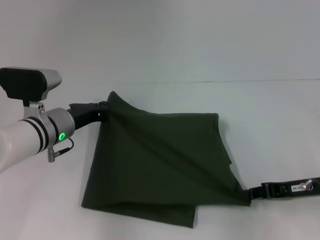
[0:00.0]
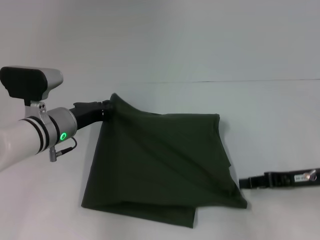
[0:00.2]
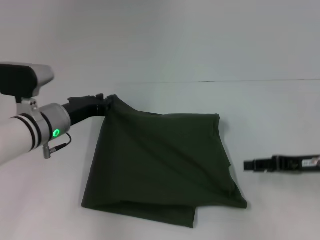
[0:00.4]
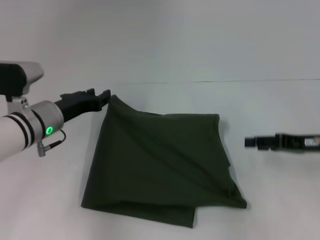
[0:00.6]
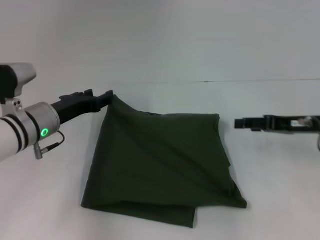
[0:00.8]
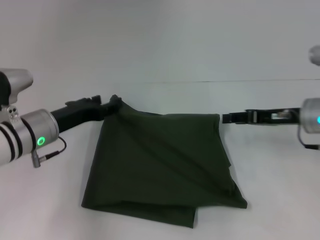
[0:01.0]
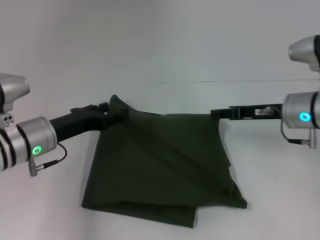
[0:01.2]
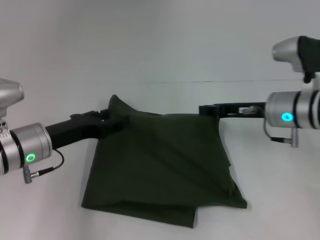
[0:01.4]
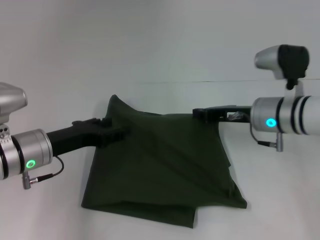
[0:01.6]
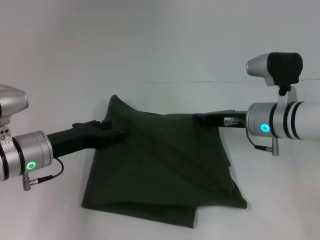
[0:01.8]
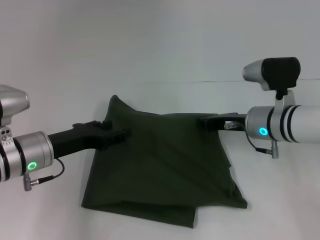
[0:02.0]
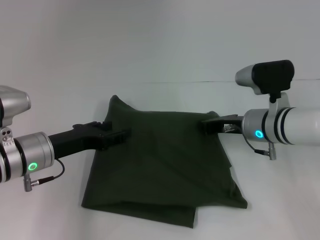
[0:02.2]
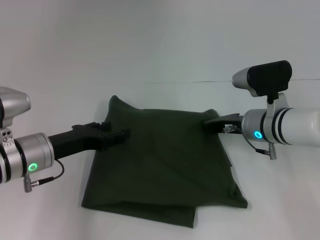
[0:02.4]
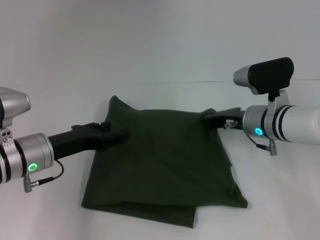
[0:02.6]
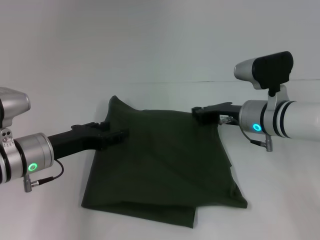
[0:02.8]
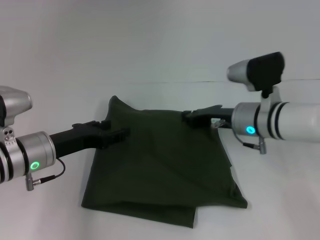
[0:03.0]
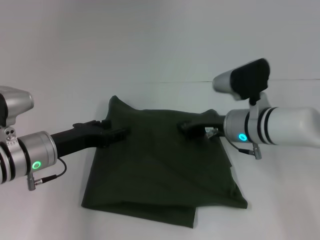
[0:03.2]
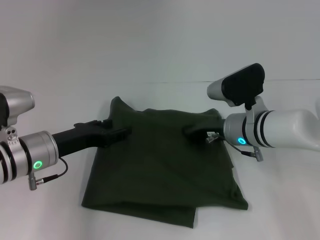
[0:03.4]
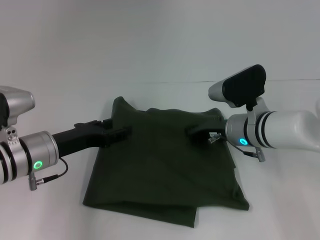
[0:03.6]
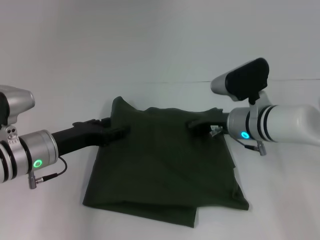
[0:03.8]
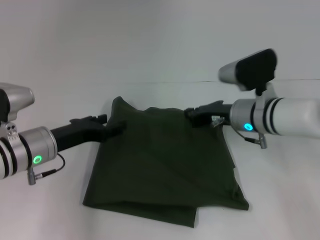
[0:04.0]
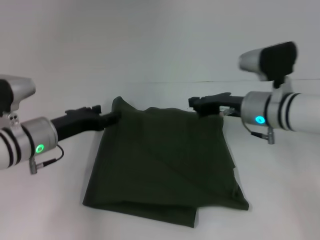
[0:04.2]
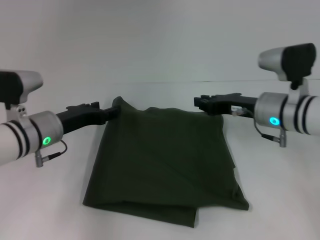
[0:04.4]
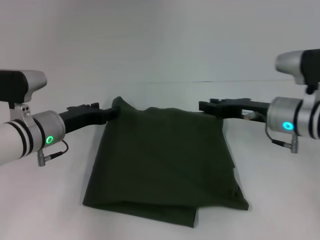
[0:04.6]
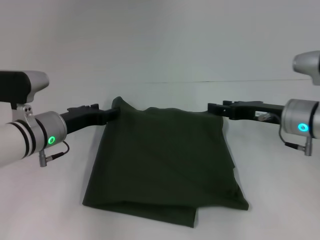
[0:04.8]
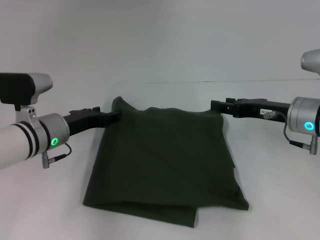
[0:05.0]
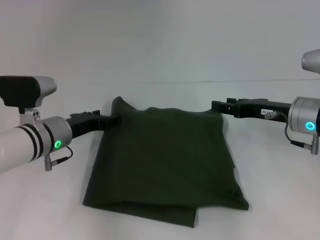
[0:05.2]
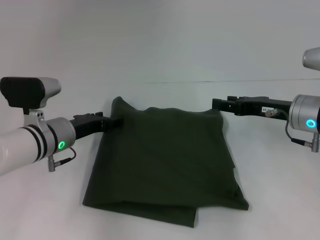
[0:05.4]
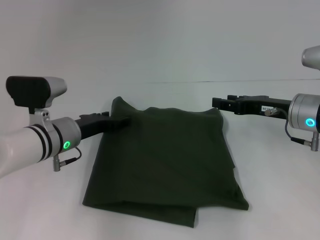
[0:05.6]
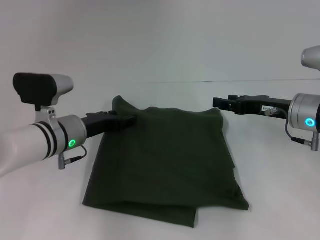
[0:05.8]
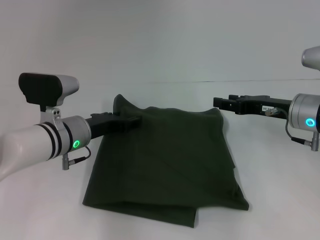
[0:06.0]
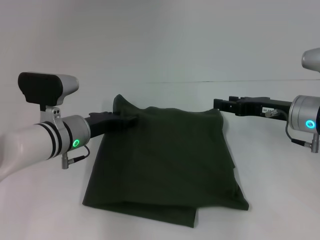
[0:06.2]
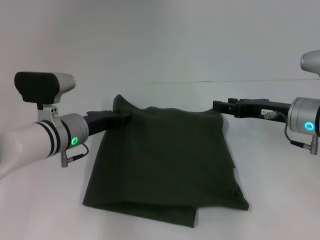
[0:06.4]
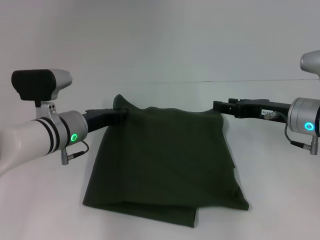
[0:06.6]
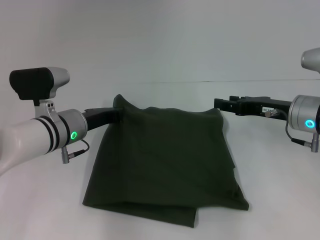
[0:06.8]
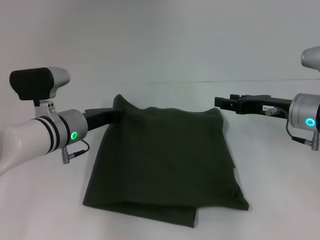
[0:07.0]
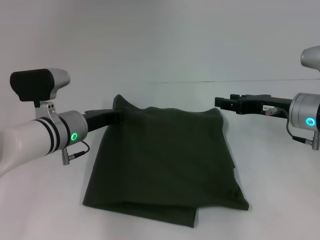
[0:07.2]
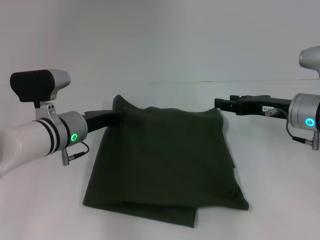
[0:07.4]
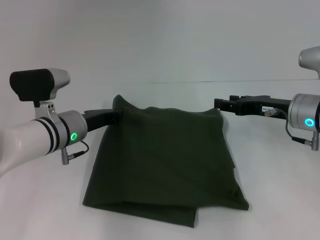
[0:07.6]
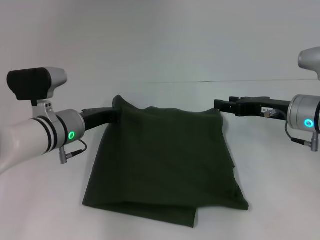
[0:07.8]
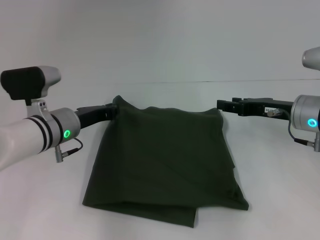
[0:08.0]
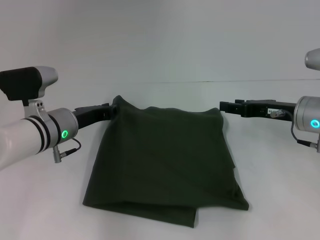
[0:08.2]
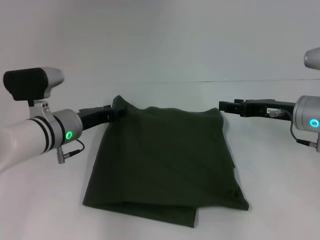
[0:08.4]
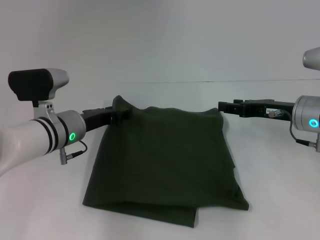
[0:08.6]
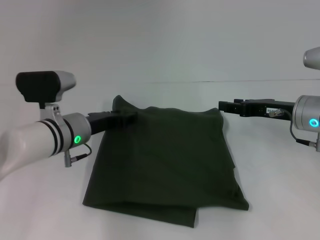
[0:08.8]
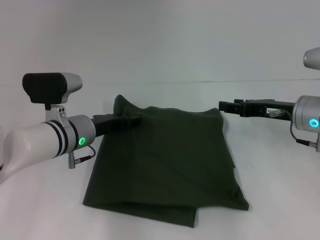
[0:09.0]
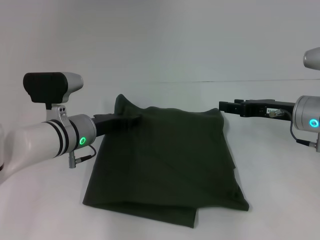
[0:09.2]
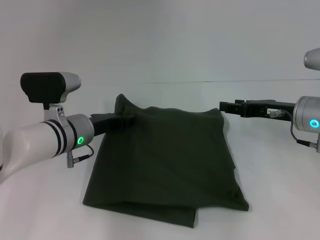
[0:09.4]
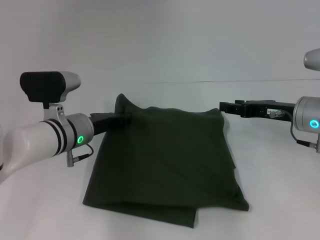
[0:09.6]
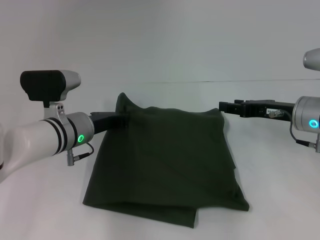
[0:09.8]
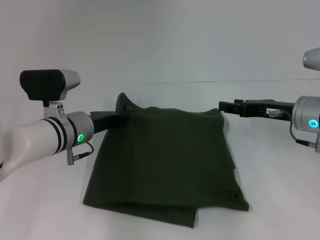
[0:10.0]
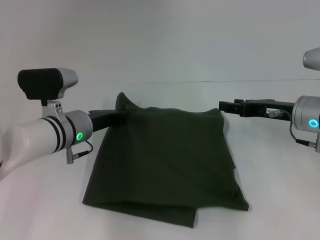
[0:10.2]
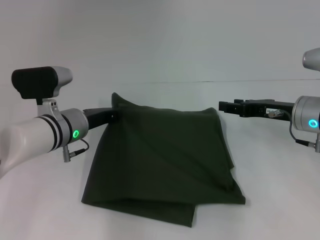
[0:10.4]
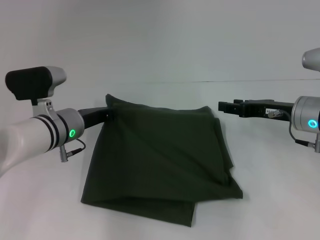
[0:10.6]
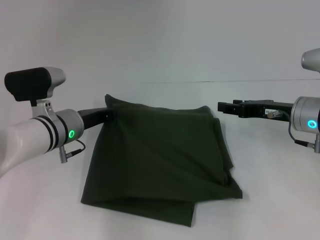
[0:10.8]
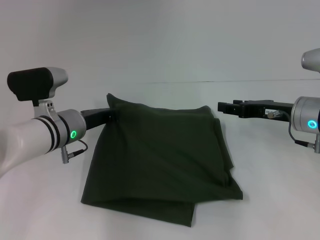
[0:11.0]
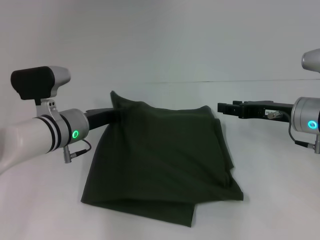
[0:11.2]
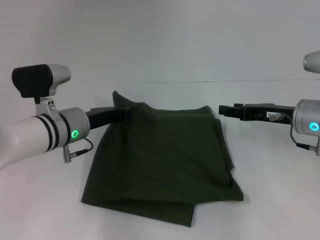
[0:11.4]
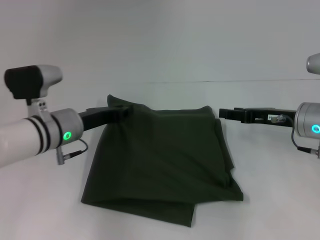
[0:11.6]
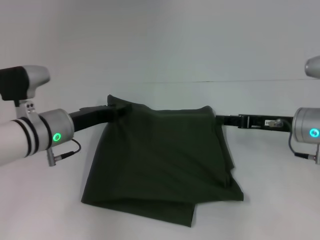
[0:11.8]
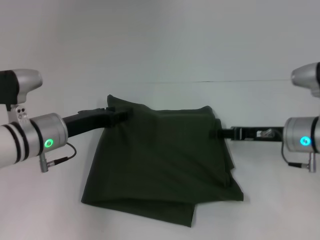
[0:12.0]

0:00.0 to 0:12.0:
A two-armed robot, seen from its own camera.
0:00.0 to 0:01.6: The right gripper is displaced forward and to the left by roughly 15 cm, and opens, then closes once more, while the left gripper heads backward, covering some 5 cm, and opens.
0:01.6 to 0:03.0: There are only small adjustments of the grippers.
0:04.4 to 0:06.0: The right gripper moves approximately 5 cm, and opens.
0:06.0 to 0:07.6: The left gripper closes its fingers.
0:07.6 to 0:09.0: The left gripper opens.
0:09.0 to 0:10.4: The left gripper closes.
0:10.4 to 0:12.0: The left gripper opens.

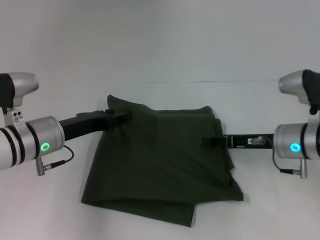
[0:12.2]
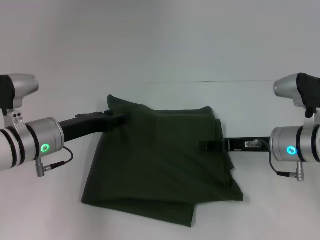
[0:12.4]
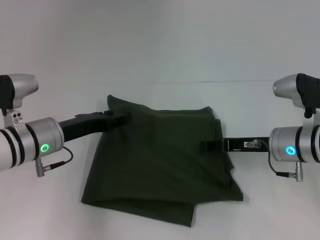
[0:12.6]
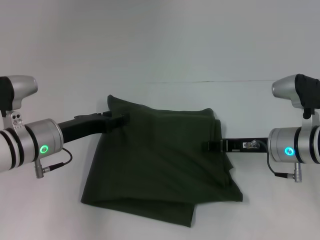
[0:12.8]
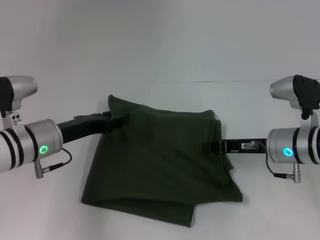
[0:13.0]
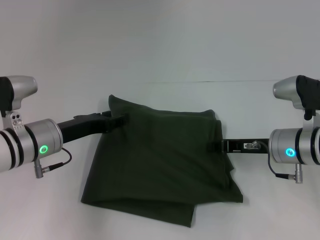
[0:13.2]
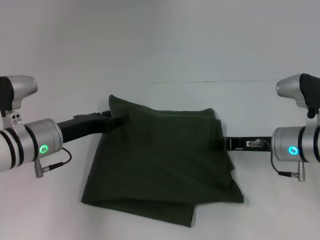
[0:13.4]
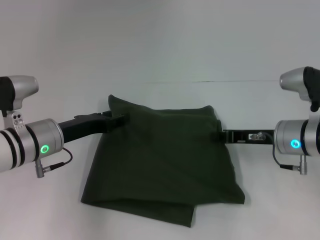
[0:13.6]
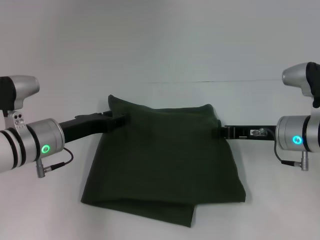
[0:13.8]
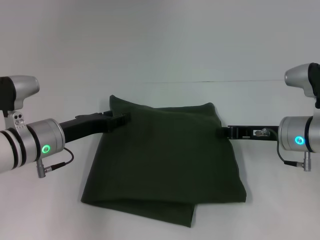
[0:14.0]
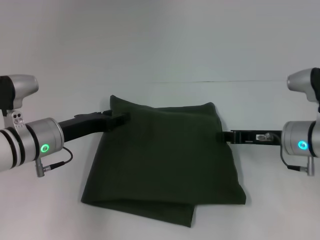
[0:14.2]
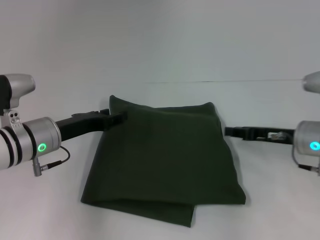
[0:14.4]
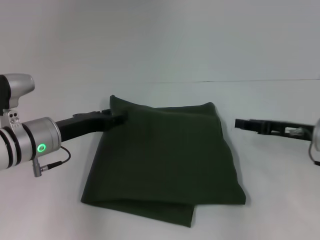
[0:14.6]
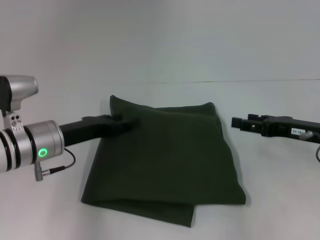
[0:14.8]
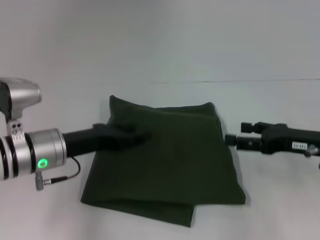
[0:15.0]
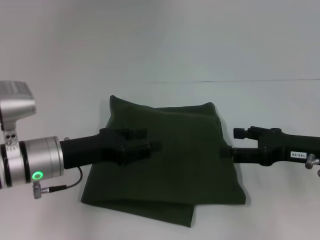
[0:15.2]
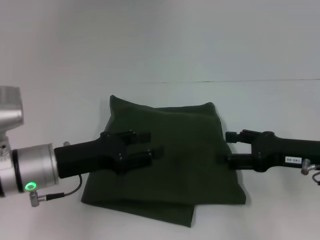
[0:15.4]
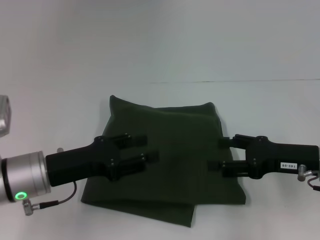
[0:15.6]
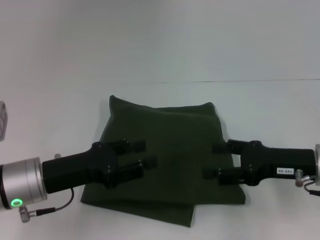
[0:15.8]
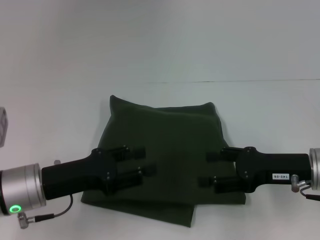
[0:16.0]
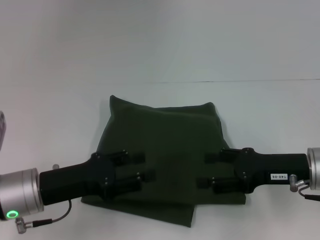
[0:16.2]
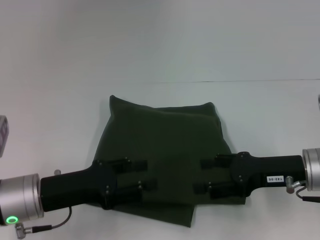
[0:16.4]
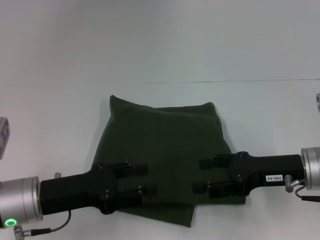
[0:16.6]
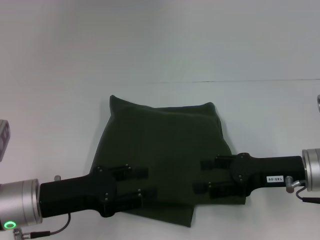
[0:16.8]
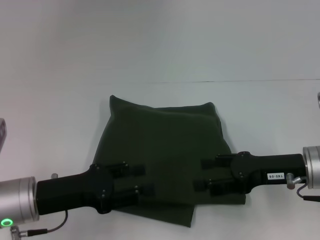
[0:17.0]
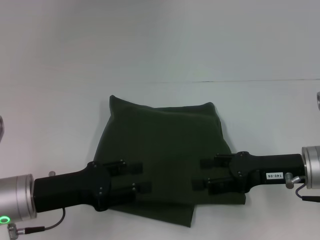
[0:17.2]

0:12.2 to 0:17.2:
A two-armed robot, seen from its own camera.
0:12.2 to 0:13.8: The right gripper closes up.
0:13.8 to 0:15.6: The two grippers go some 5 cm backward. The right gripper opens its fingers.
0:15.6 to 0:17.2: There are only small adjustments of the grippers.

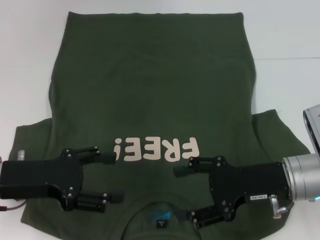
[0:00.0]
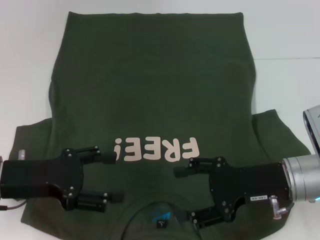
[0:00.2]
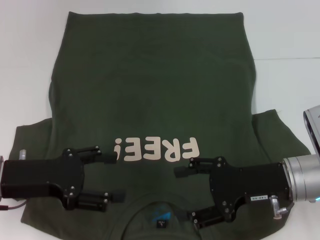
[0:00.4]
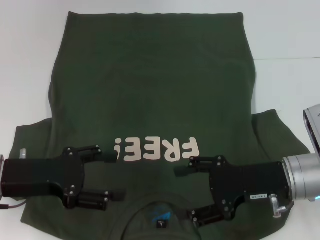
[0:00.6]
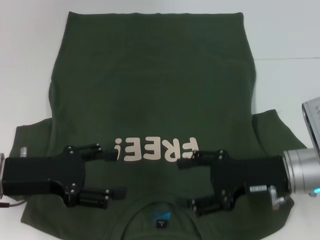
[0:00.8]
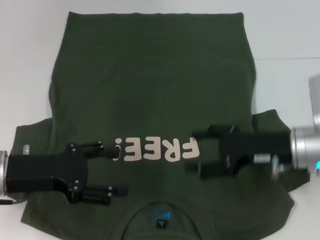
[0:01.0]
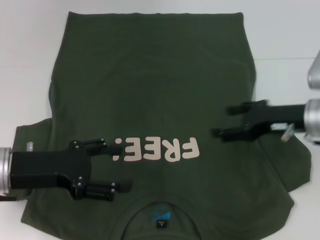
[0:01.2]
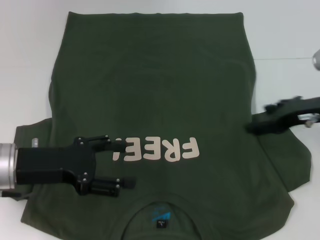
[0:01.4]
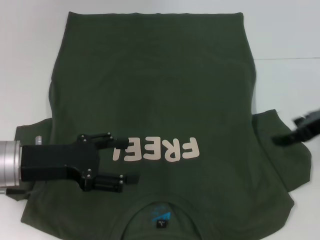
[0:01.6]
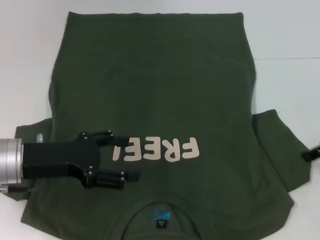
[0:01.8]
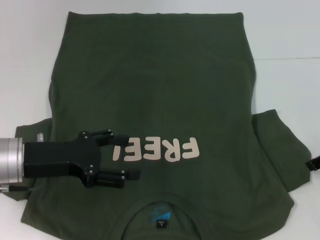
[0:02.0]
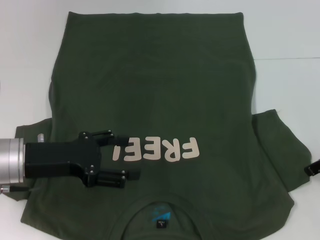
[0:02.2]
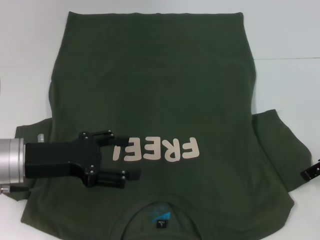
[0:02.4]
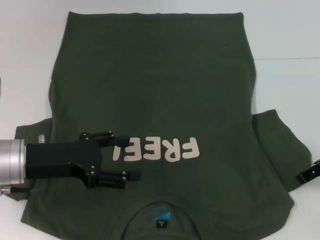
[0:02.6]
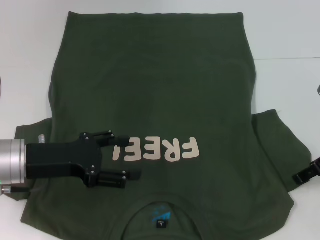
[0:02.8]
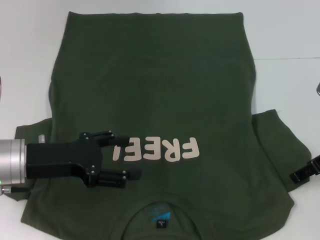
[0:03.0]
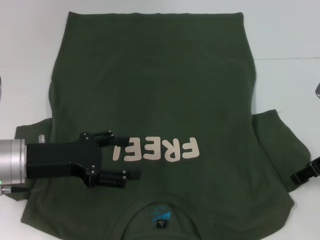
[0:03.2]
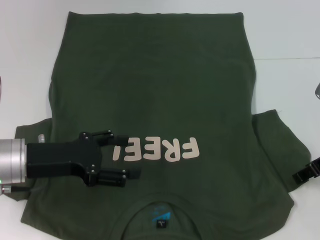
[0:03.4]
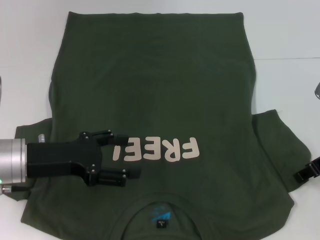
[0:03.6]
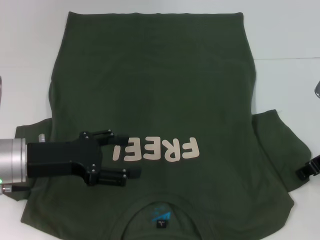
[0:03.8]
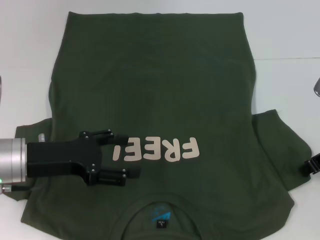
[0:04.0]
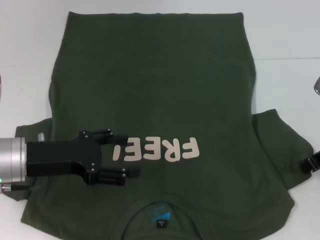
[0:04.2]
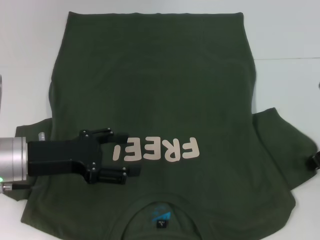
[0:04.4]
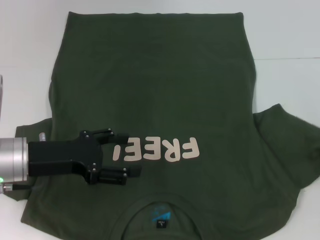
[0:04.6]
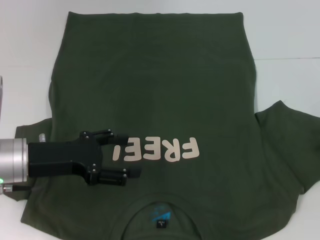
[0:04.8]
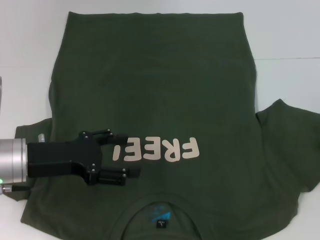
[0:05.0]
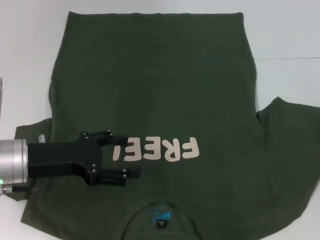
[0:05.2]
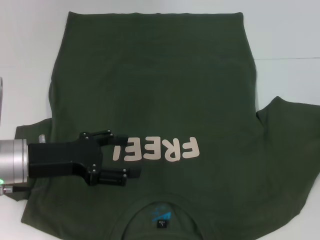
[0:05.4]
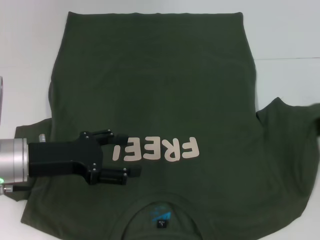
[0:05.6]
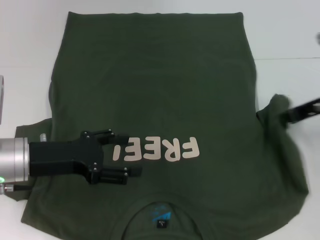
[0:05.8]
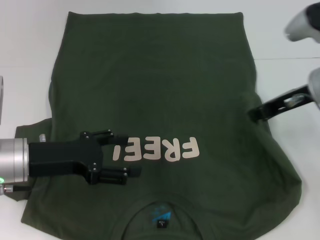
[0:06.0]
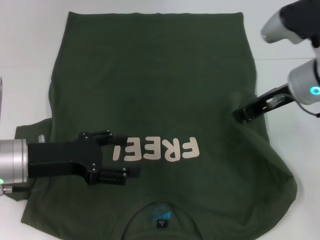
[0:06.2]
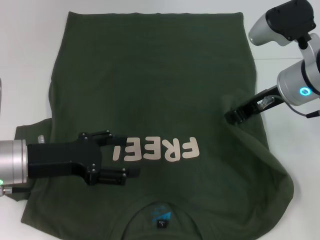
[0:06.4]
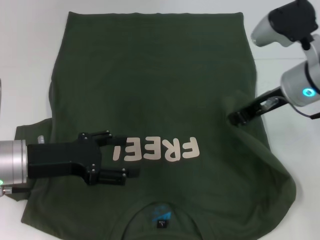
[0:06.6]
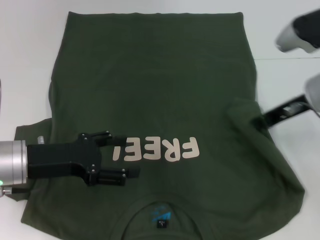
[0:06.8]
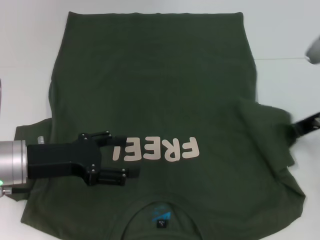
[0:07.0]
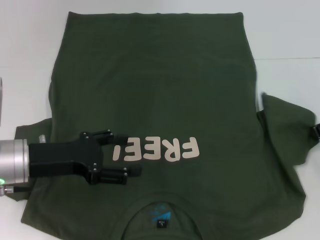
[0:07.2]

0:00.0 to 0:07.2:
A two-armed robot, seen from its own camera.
0:00.0 to 0:01.4: The right gripper moves forward, to the right and upward, some 10 cm.
0:02.8 to 0:04.4: The right gripper closes its fingers.
0:04.4 to 0:05.8: The right gripper ends up roughly 5 cm from where it was.
0:05.8 to 0:07.2: The right gripper goes to the left and returns, about 10 cm each way.
